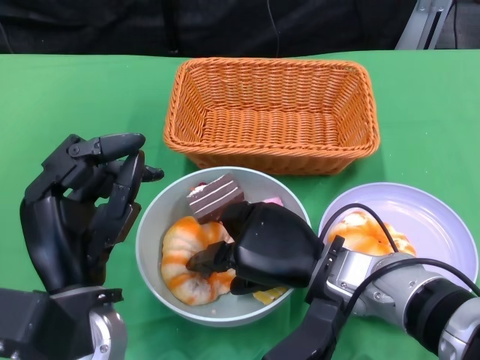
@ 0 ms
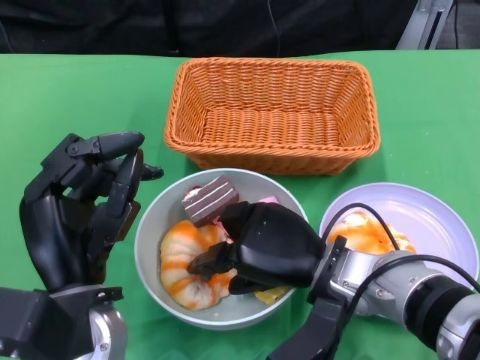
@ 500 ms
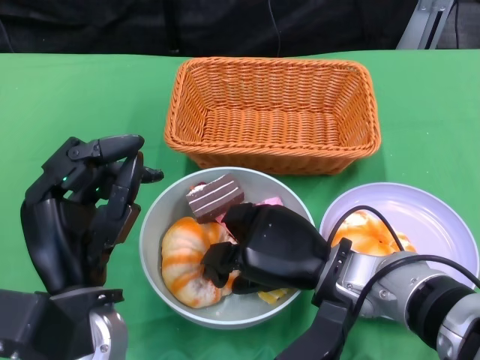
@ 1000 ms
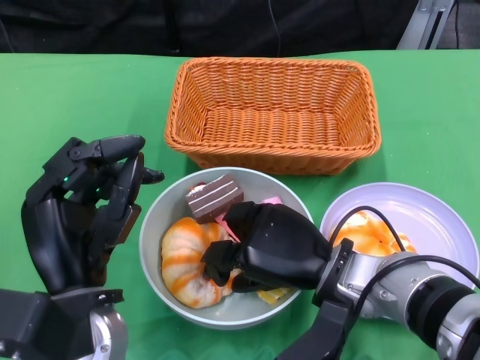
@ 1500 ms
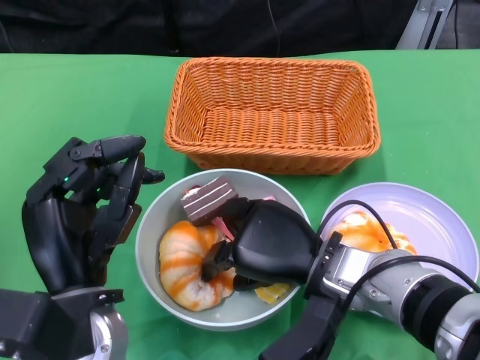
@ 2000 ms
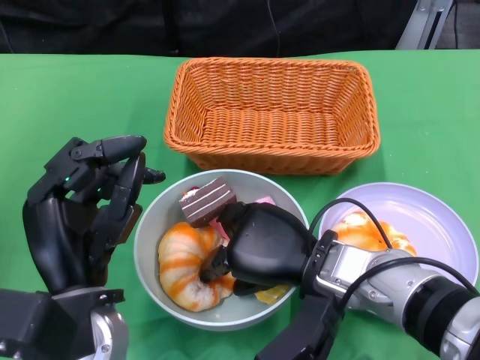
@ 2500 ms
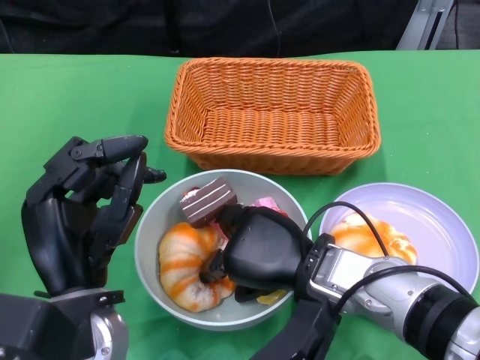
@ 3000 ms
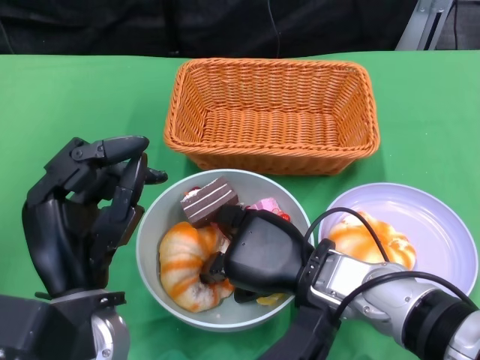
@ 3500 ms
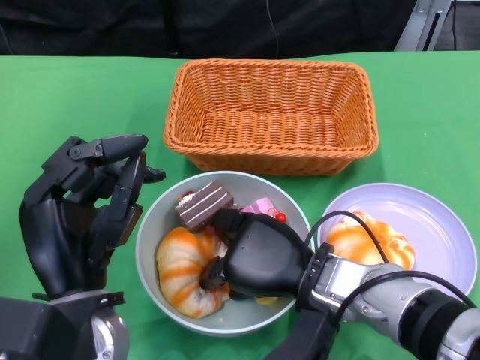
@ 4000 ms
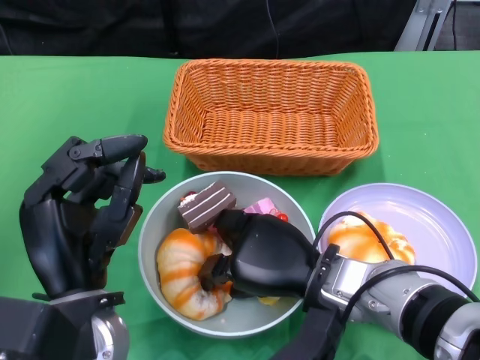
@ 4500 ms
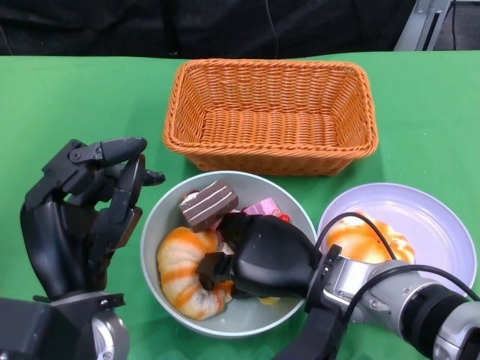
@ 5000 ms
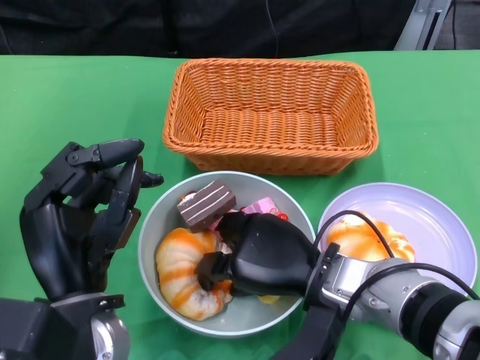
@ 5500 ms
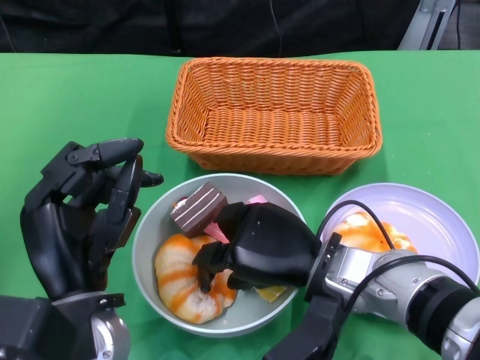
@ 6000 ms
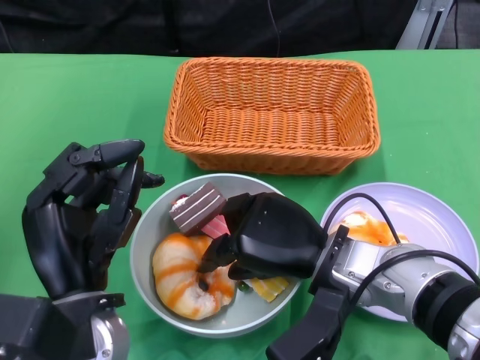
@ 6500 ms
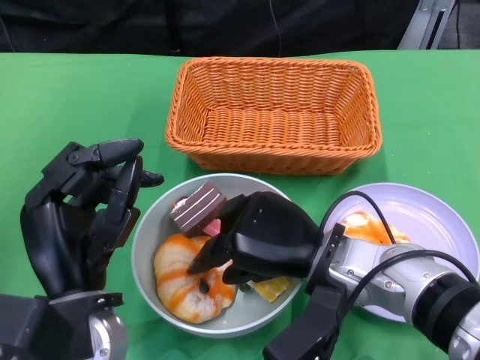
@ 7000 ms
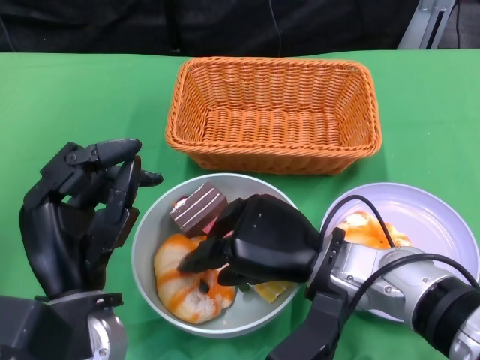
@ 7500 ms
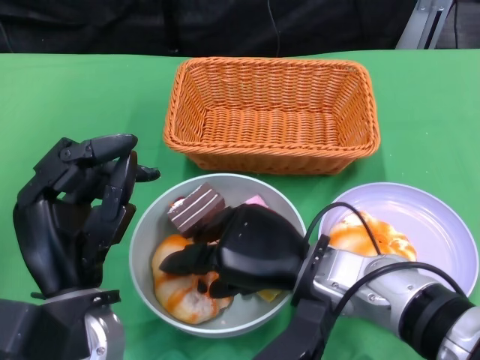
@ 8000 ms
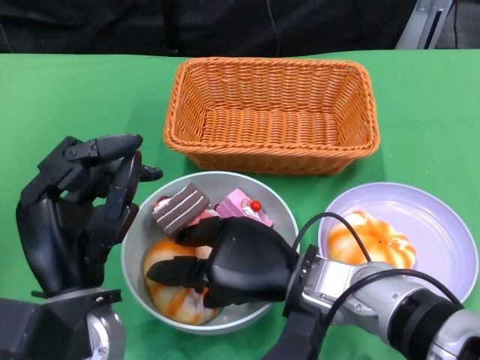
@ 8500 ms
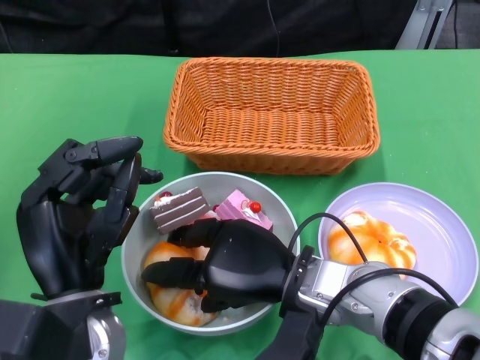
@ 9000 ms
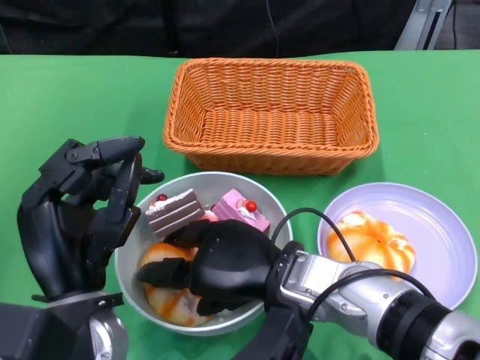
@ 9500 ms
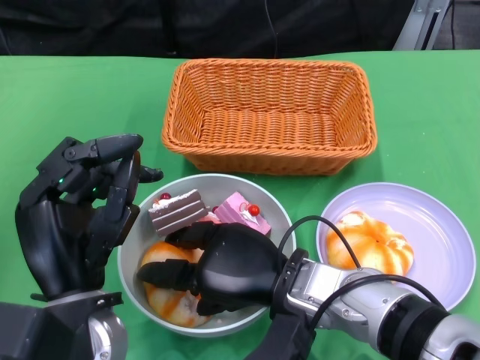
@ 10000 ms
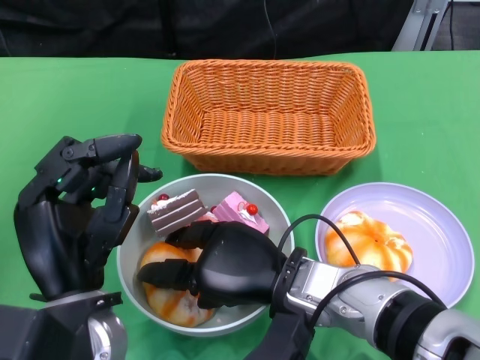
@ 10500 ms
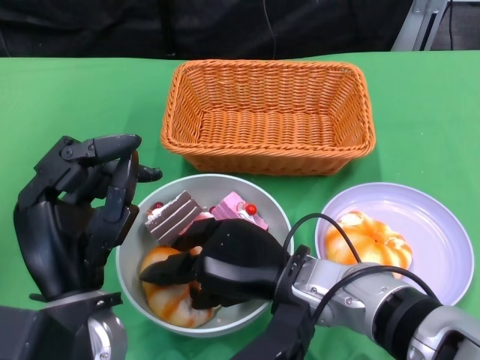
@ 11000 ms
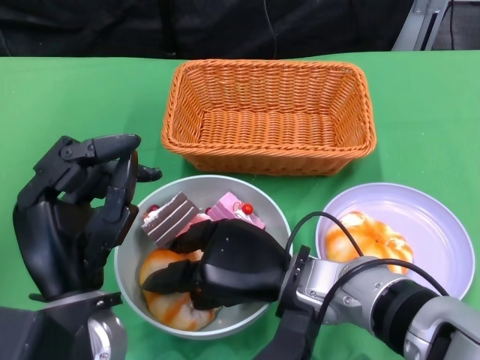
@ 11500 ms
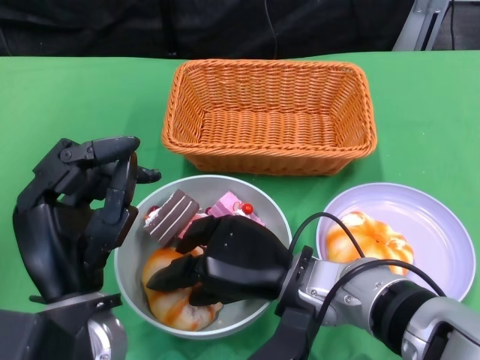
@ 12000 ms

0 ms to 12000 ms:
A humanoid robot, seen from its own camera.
0 ms to 2000 ms: The hands stay close to where they were, moving slightly.
10000 ms to 12000 ms: There are only small adjustments of the hands.

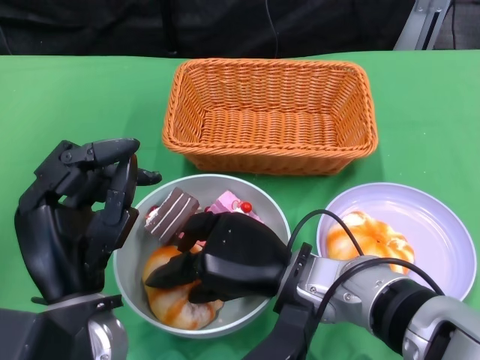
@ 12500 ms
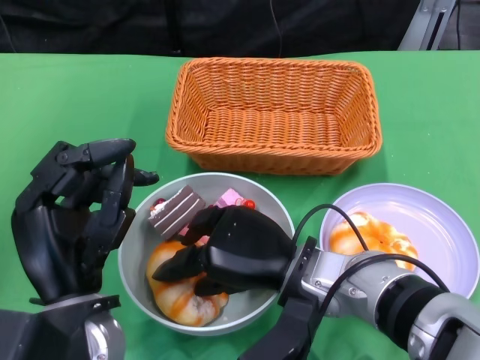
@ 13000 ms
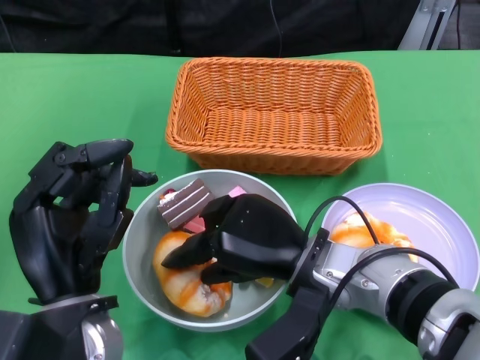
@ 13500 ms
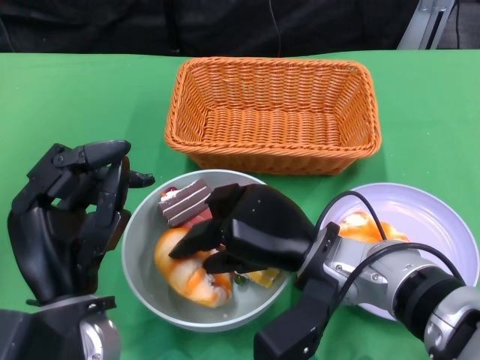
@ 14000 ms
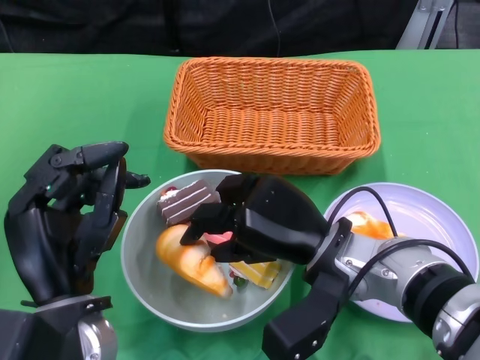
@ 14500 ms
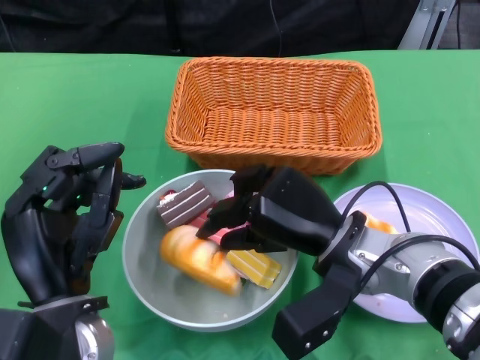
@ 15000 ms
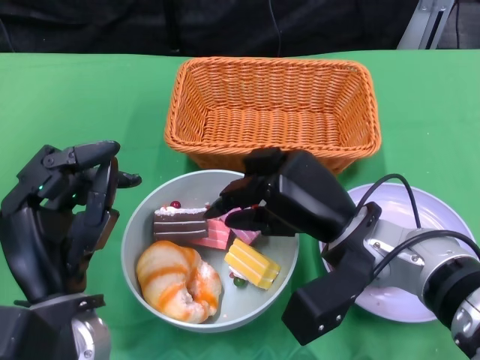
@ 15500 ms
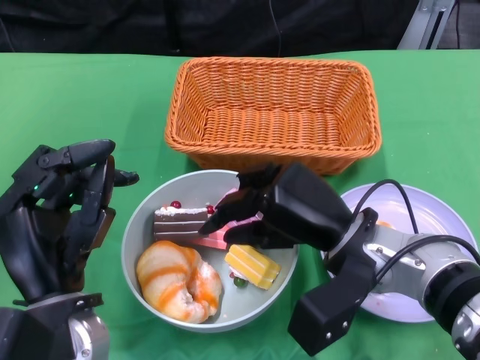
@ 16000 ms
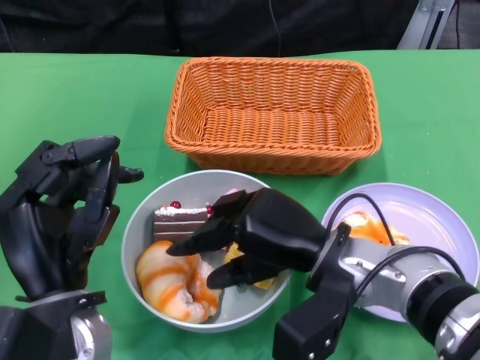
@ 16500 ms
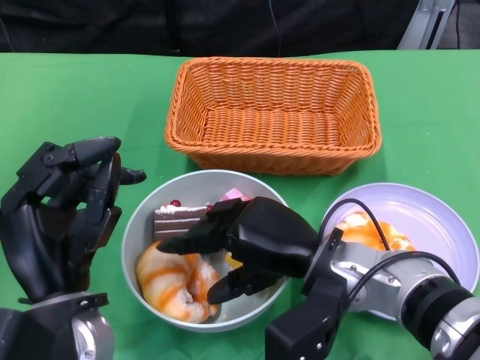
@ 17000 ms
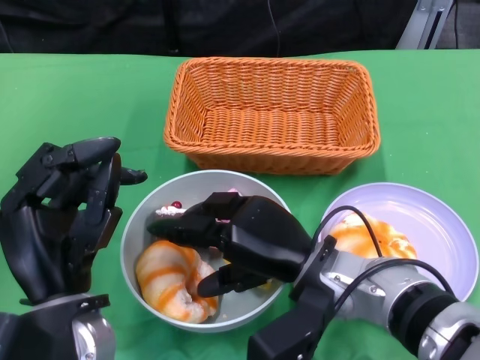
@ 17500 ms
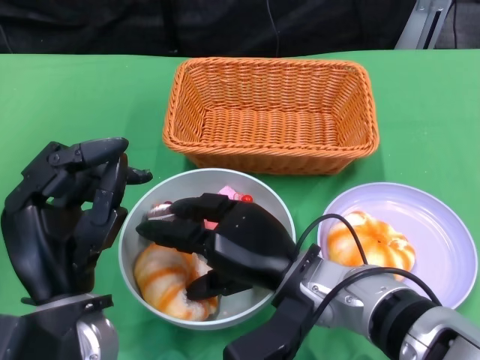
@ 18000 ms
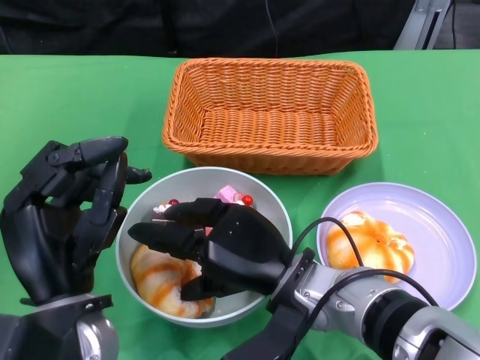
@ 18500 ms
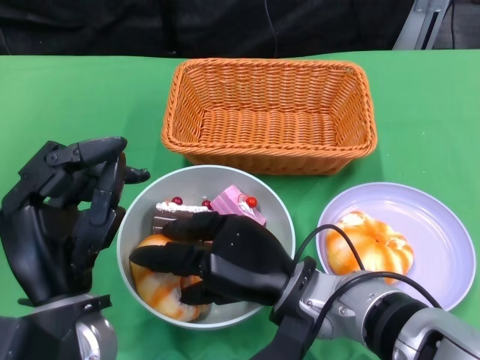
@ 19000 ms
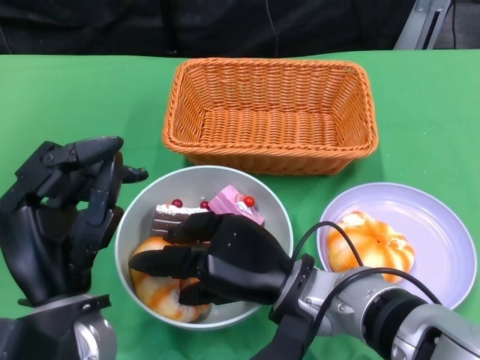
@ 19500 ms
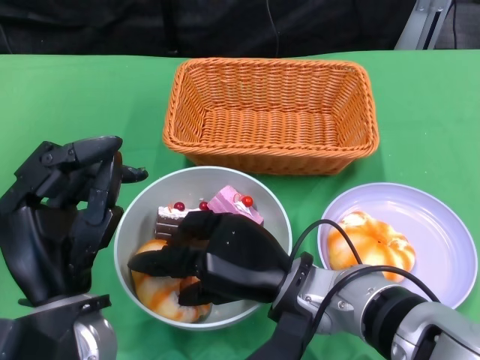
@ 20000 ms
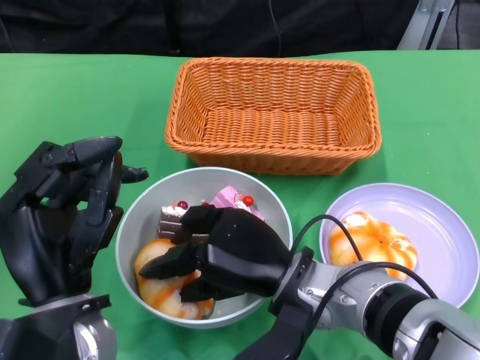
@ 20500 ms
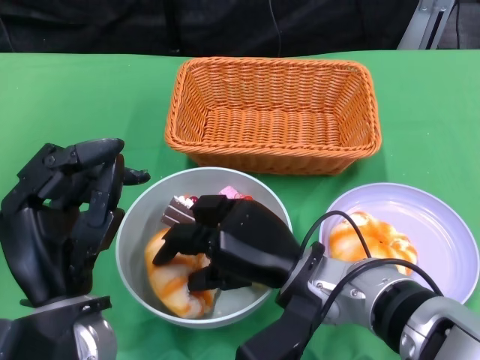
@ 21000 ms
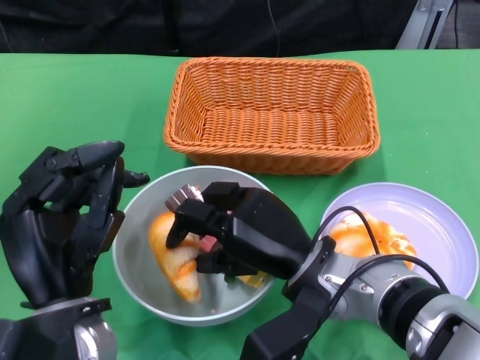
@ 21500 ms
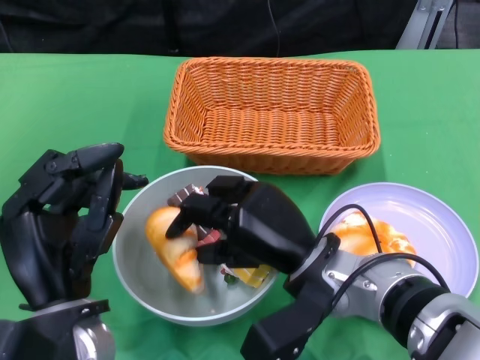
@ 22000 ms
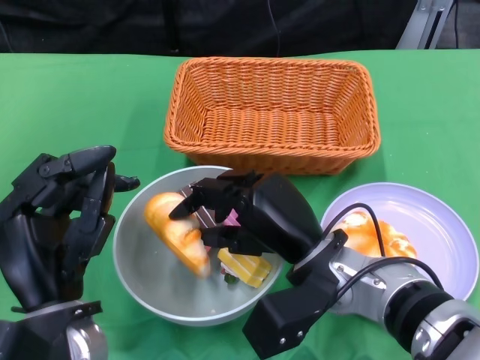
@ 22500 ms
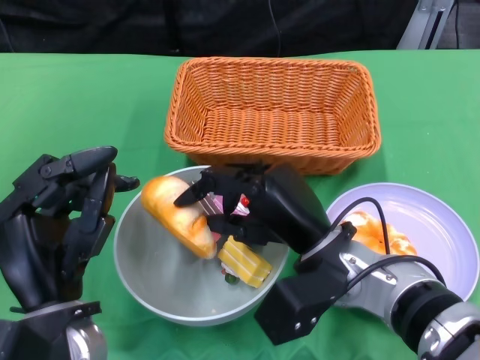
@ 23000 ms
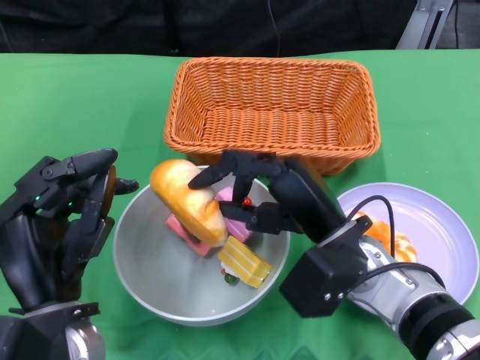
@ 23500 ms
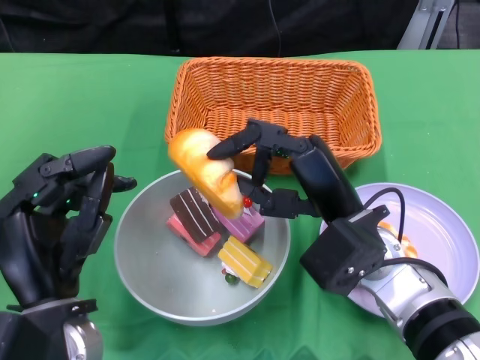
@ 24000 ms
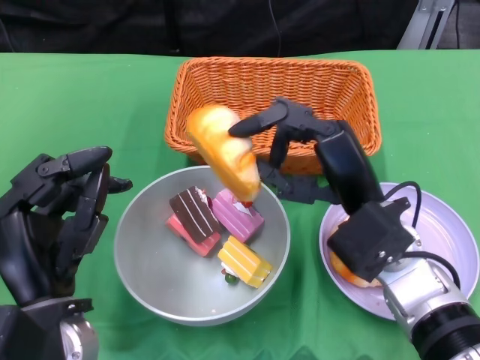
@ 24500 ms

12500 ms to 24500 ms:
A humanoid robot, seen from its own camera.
16500 ms to 18500 ms: The right hand ends up roughly 5 cm from where it was.
18500 ms to 20500 ms: The hands stay close to where they were, moving slightly.
22500 ms to 24500 ms: The right hand moves some 5 cm.

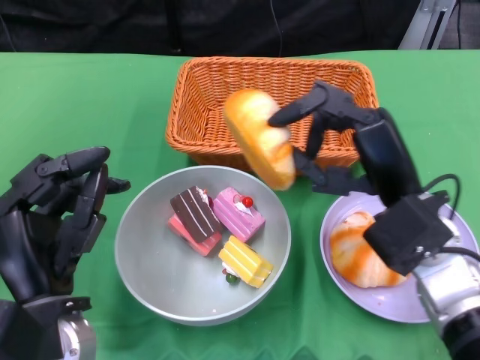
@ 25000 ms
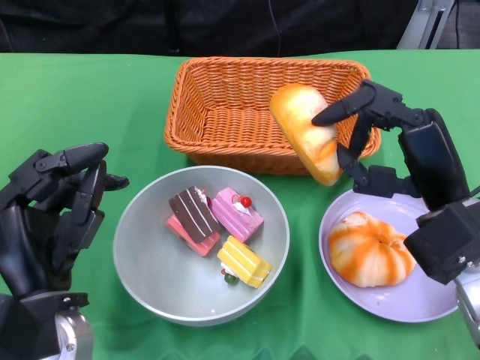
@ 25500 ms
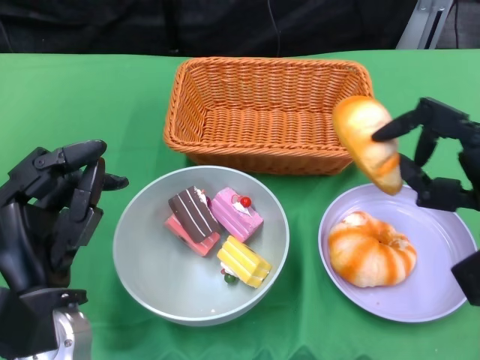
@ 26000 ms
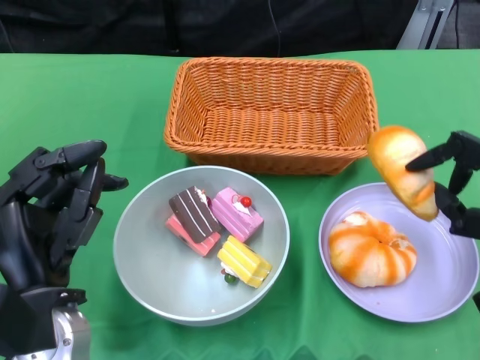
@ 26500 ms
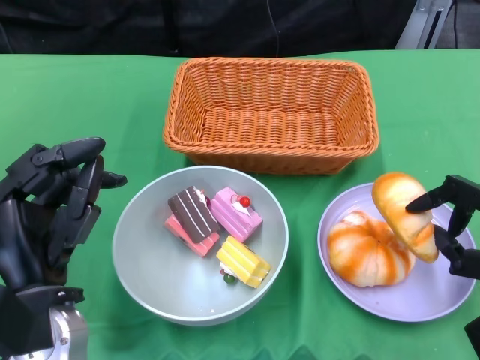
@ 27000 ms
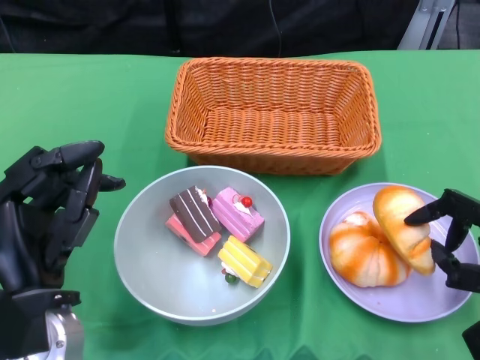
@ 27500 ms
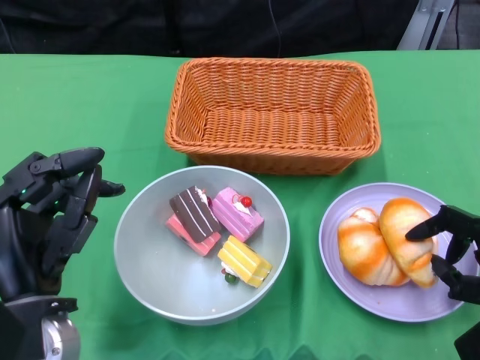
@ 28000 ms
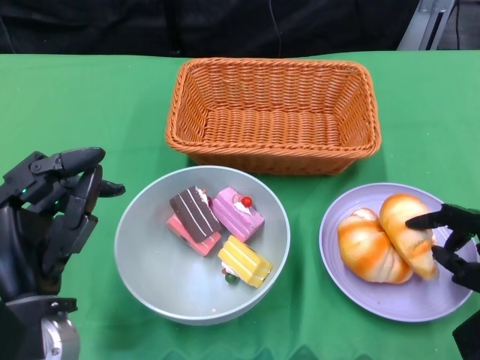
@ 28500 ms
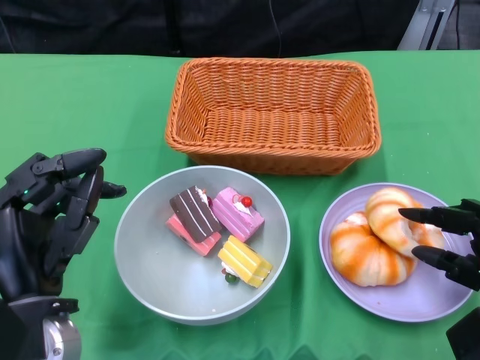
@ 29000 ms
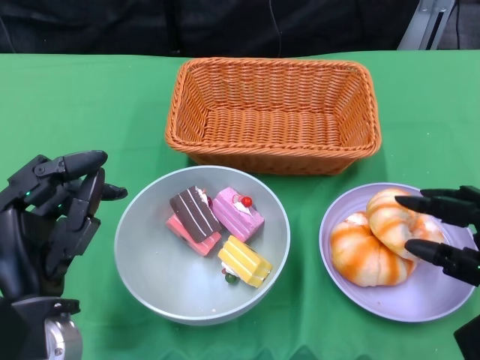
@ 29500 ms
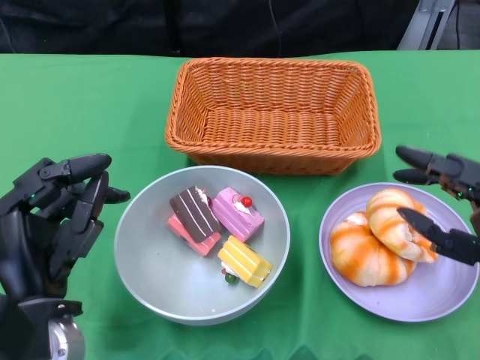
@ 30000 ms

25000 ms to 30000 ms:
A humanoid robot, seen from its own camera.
25000 ms to 27500 ms: The right hand heads to the right, downward and backward, covering approximately 15 cm.
